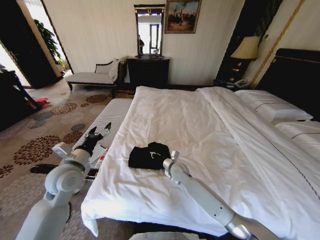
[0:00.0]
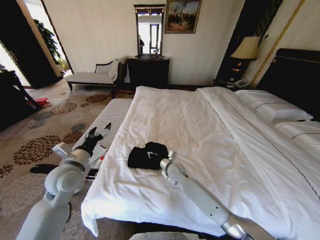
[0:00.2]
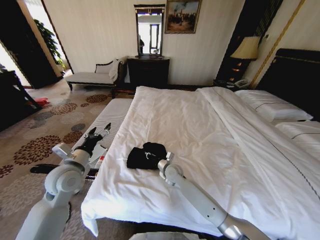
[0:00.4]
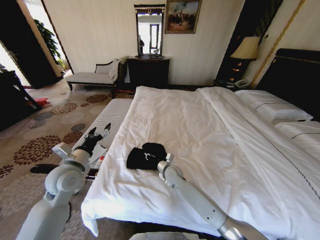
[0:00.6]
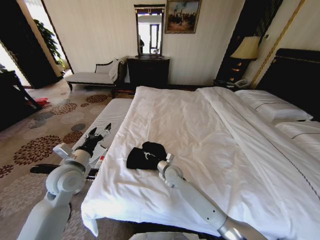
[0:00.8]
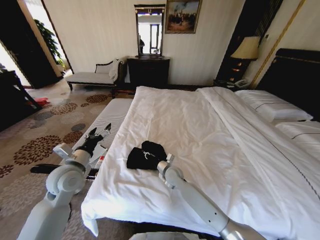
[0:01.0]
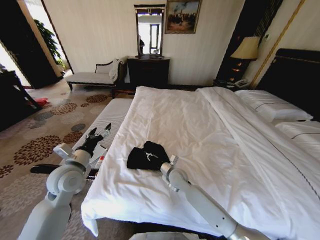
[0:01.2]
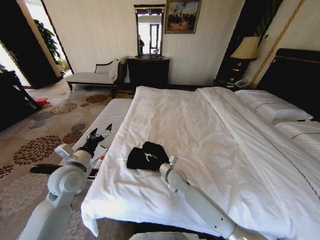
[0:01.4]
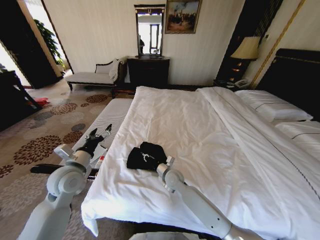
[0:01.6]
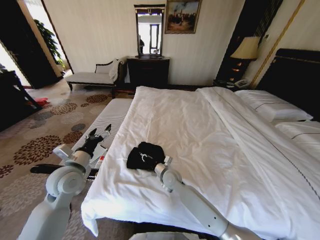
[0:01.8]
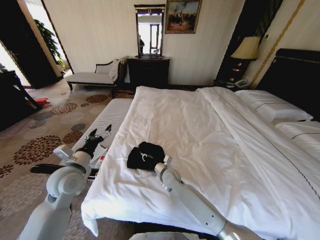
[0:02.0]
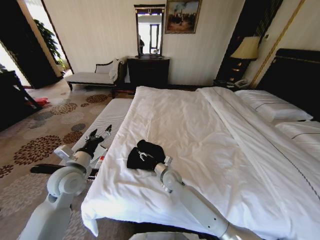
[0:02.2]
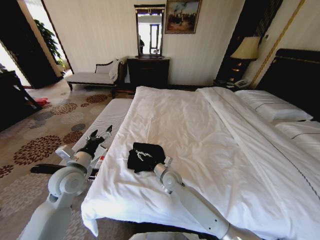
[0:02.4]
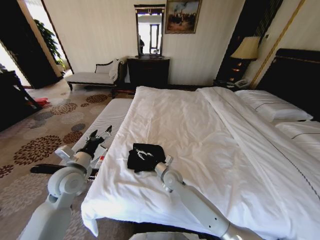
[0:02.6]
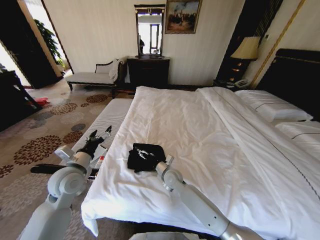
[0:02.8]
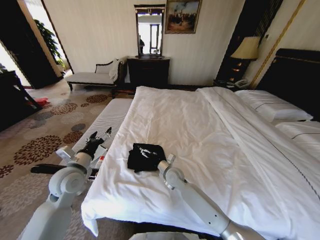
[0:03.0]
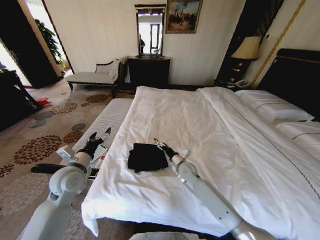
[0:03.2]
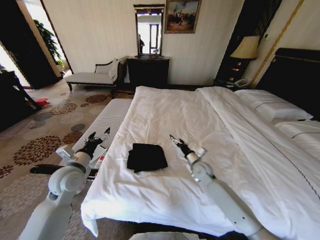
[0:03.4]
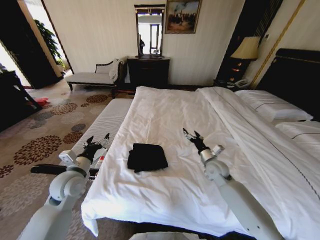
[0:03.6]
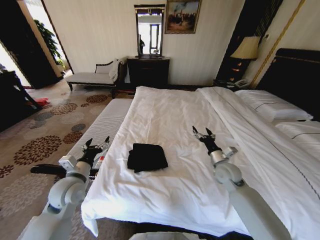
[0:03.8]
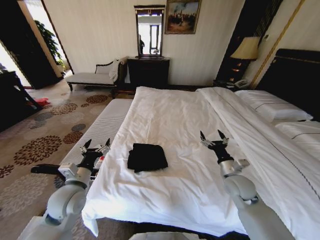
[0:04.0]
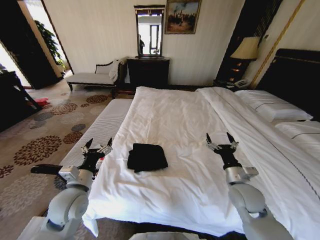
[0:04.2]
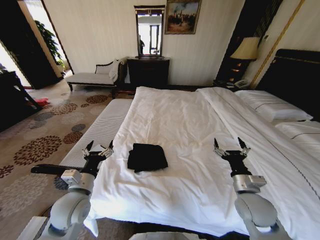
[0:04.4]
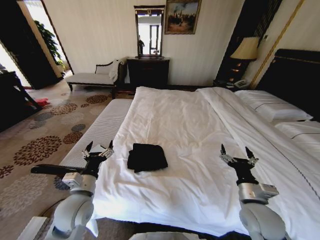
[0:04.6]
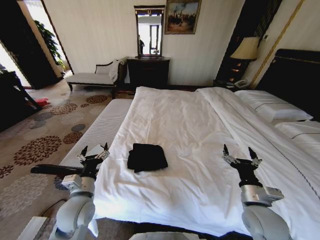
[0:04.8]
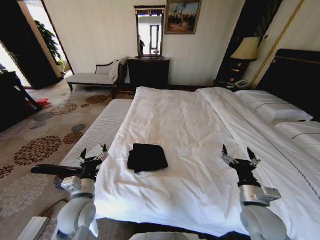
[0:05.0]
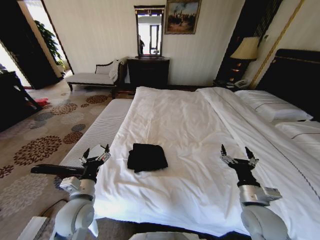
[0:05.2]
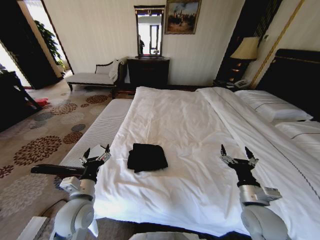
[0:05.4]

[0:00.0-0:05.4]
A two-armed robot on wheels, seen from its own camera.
Task of the whole recording: Fold the clothes on the bed.
0:00.0 to 0:01.4: The grippers stay close to where they were, moving slightly.
0:01.4 to 0:02.8: The right gripper opens its fingers.
0:02.8 to 0:04.0: The left gripper changes place by roughly 5 cm. The right gripper is displaced to the right by approximately 25 cm.
0:04.0 to 0:05.4: The right gripper shifts roughly 10 cm backward. Meanwhile the left gripper moves some 5 cm.
